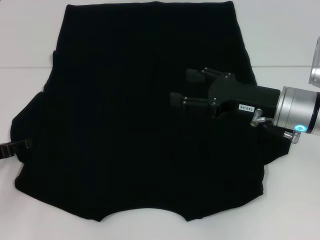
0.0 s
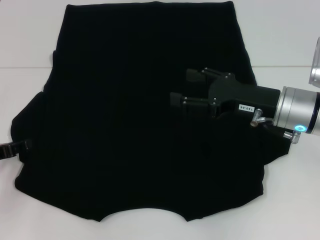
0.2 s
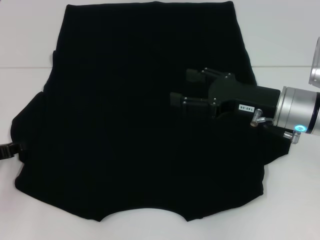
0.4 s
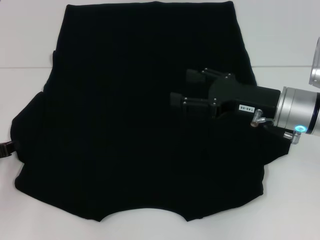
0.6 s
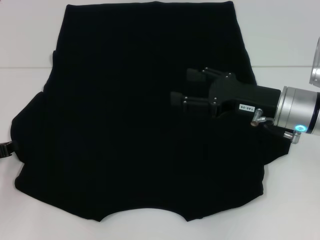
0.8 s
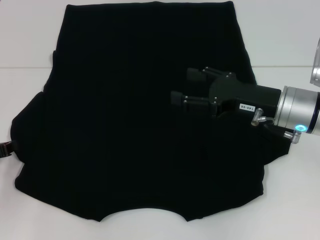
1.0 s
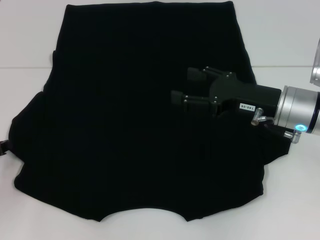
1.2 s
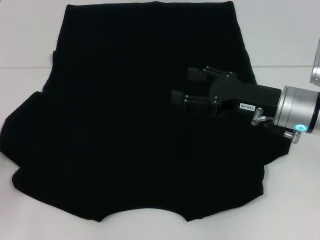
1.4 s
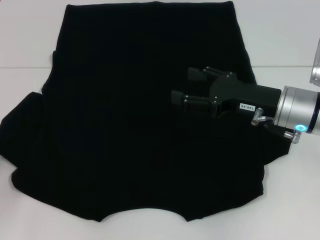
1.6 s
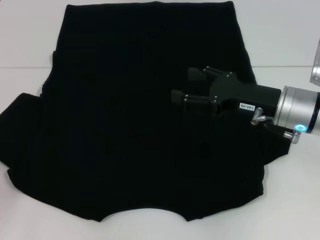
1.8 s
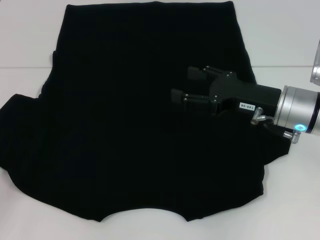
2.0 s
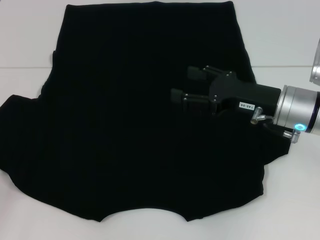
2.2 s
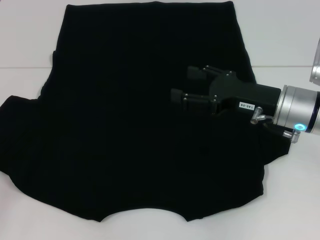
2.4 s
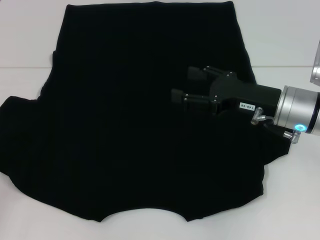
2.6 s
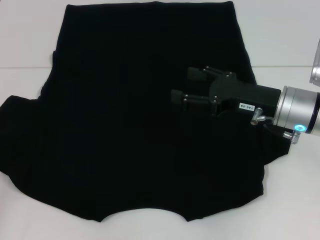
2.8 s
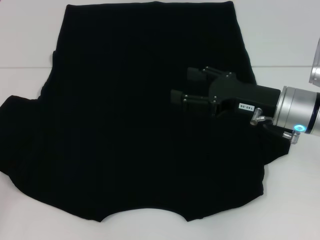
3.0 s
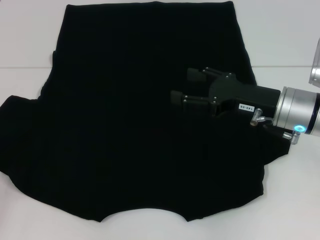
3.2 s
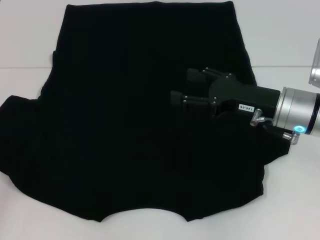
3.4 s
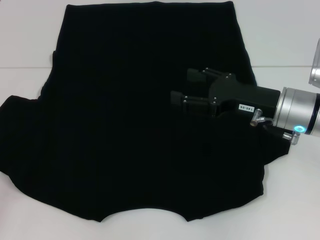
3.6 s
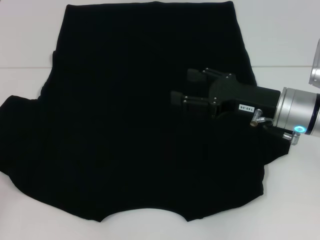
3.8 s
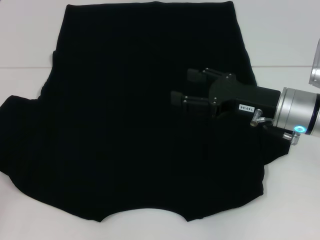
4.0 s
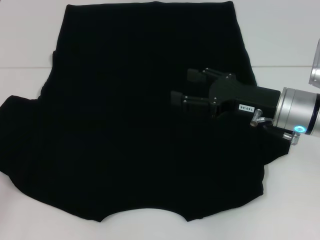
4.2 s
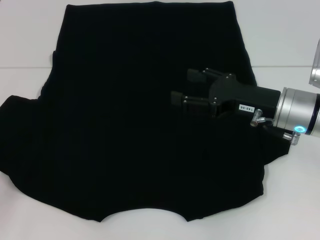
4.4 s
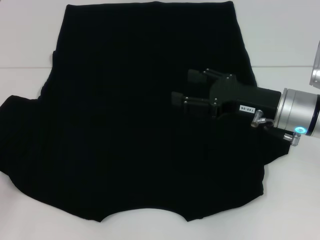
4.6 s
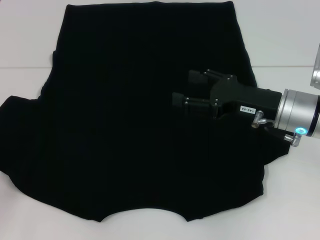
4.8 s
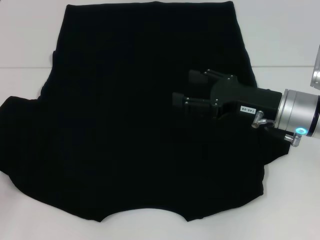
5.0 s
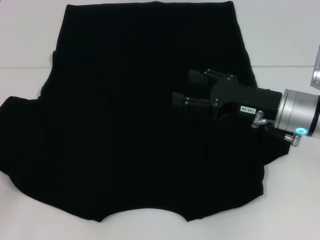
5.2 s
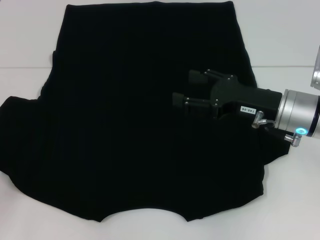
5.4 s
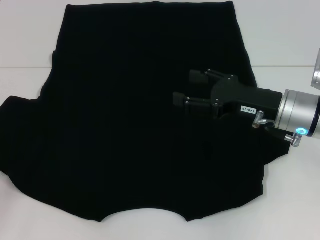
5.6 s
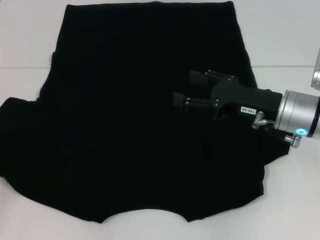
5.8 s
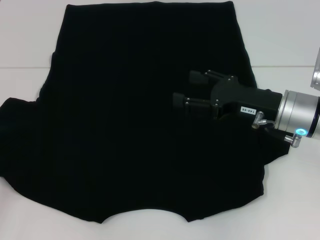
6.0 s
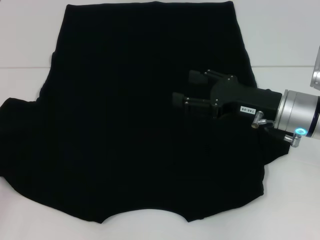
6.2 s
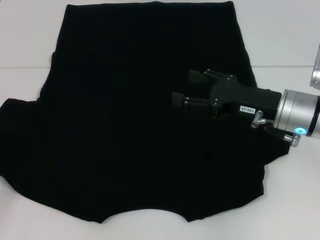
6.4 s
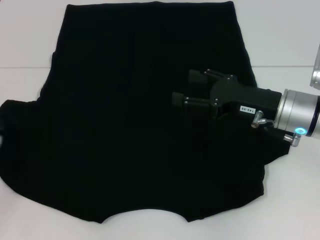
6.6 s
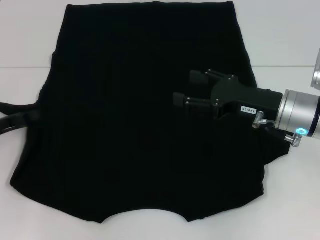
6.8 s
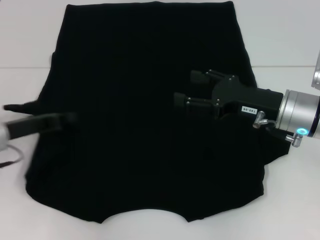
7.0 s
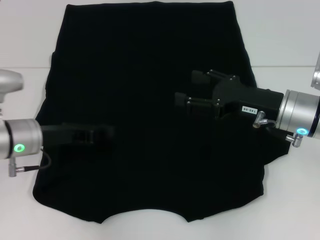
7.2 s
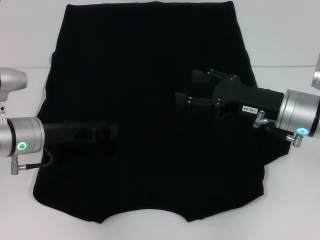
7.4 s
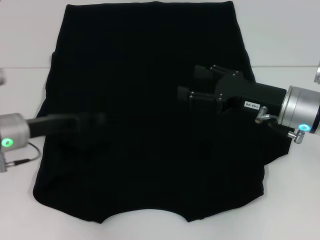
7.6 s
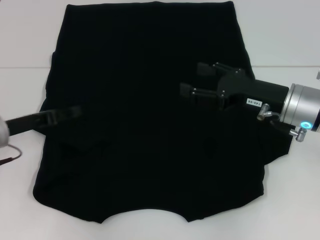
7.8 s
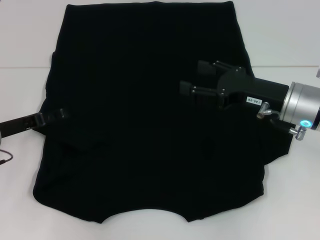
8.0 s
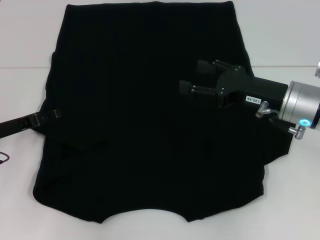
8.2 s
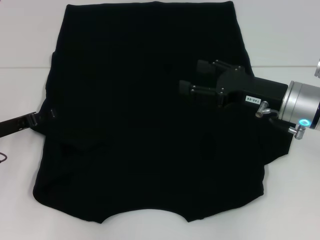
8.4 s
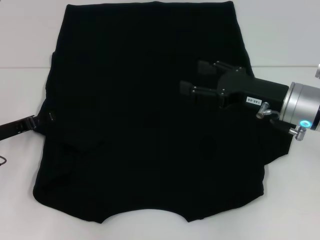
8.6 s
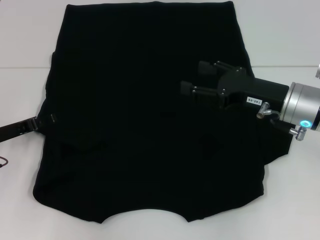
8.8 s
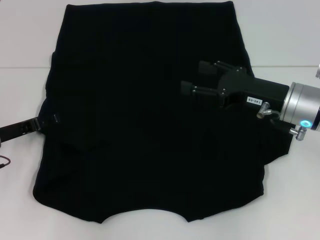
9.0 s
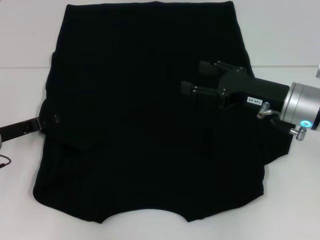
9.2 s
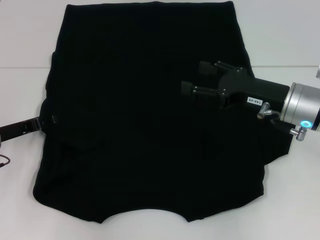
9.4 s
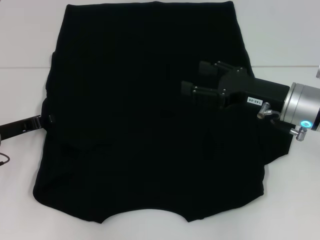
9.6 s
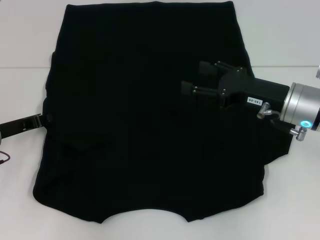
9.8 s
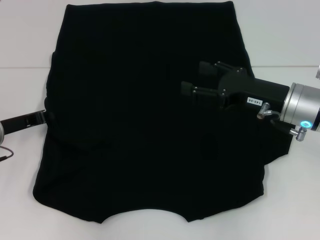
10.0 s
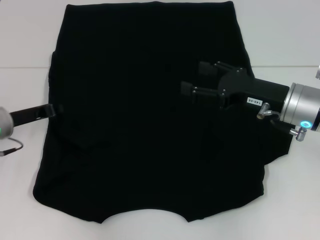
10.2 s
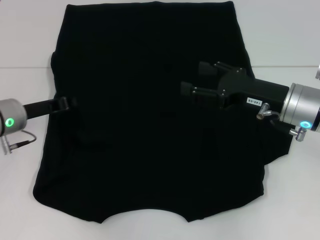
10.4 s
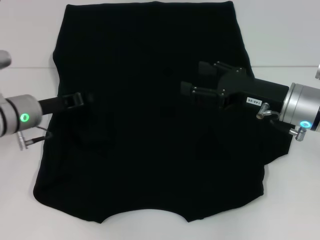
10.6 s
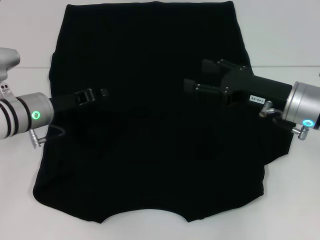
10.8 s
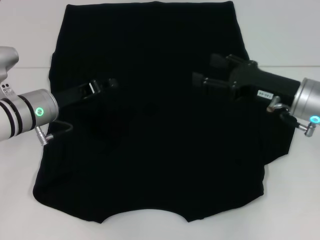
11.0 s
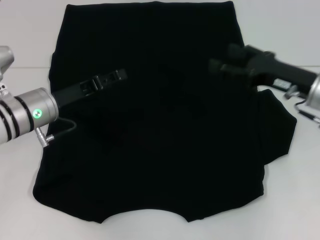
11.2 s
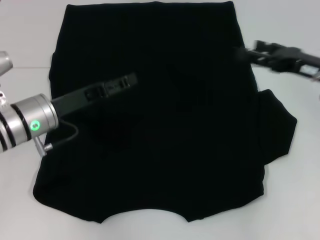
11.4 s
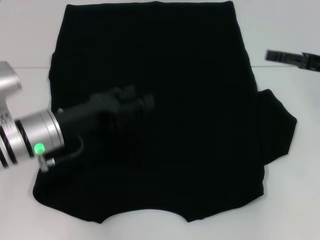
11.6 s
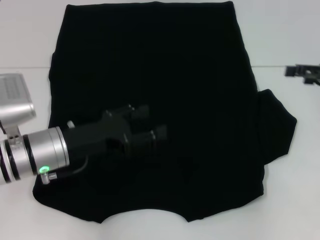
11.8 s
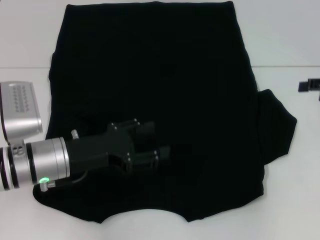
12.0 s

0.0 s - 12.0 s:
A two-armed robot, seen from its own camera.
Step, 0.0 s - 8.0 s: Fold the bottom left sleeve with your left hand.
0.0 s - 1.6 s: The left gripper closes up.
1.6 s - 3.0 s: The grippers make only small movements.
4.4 s - 6.0 s: The left gripper closes its fingers.
6.0 s - 7.6 s: The left gripper moves to the right and forward, about 15 cm, and opens.
7.6 s - 9.0 s: The left gripper heads to the left, covering about 5 cm, and opens.
9.0 s - 10.4 s: The left gripper shifts by about 5 cm, and closes.
10.4 s - 12.0 s: The left gripper shifts about 10 cm to the right and backward, and opens. Meanwhile the right gripper heads to the right, covering approximately 15 cm.

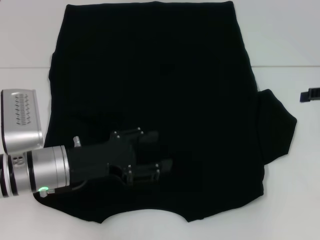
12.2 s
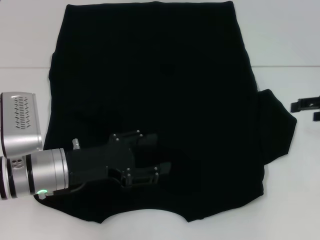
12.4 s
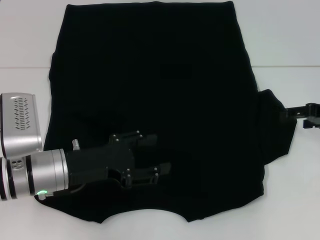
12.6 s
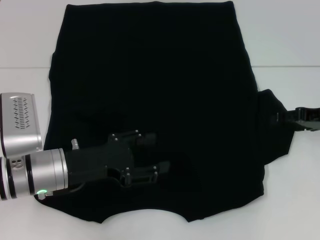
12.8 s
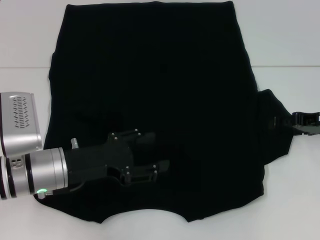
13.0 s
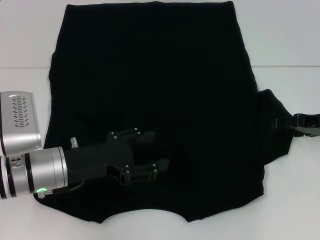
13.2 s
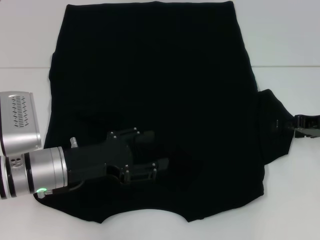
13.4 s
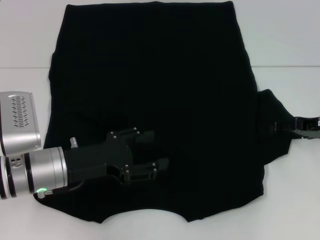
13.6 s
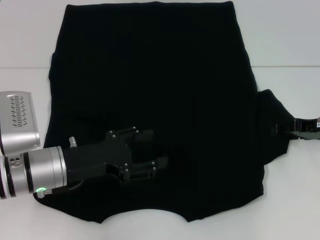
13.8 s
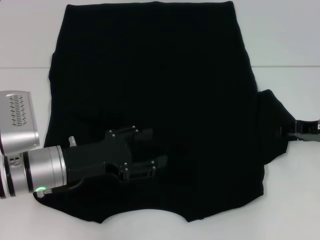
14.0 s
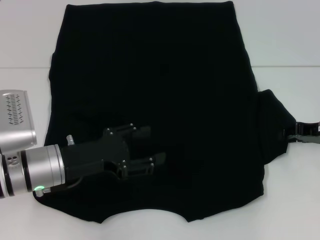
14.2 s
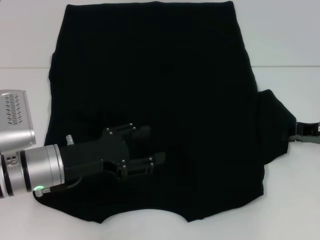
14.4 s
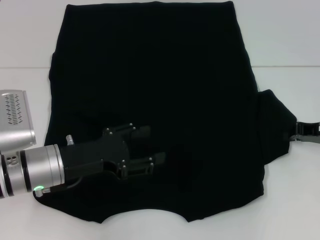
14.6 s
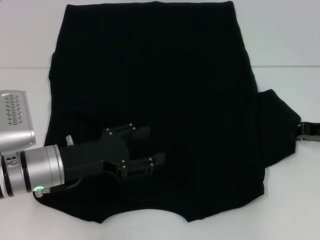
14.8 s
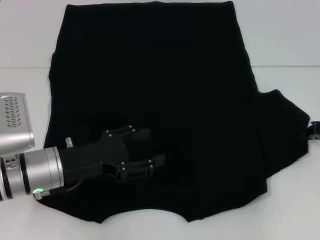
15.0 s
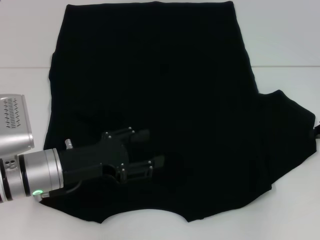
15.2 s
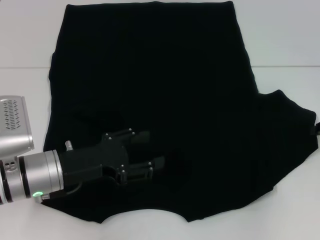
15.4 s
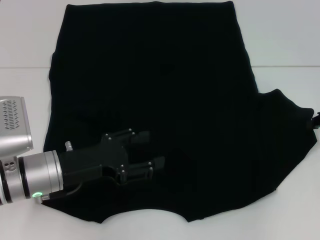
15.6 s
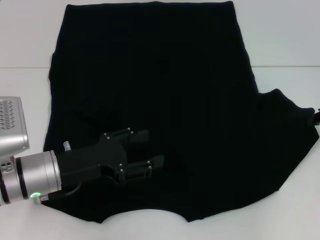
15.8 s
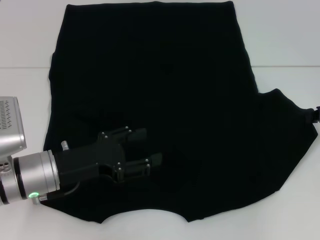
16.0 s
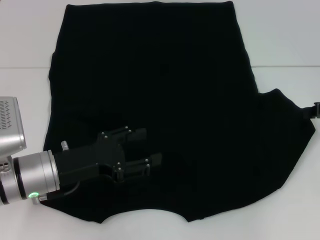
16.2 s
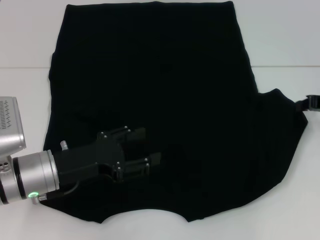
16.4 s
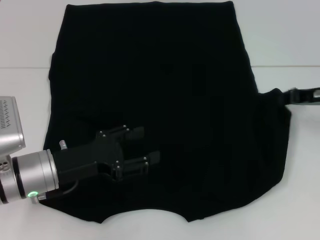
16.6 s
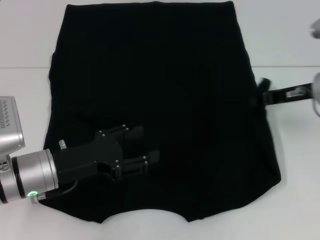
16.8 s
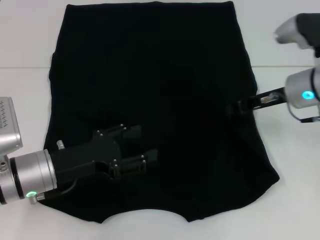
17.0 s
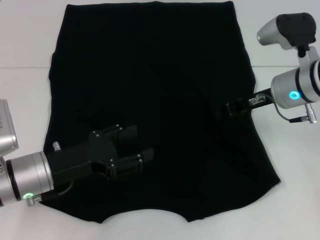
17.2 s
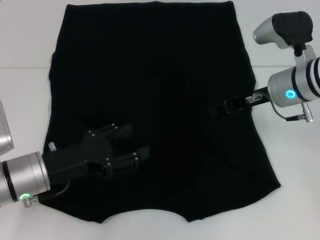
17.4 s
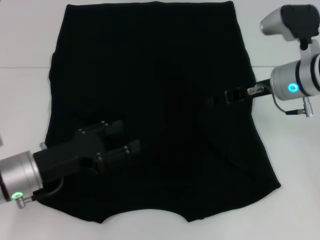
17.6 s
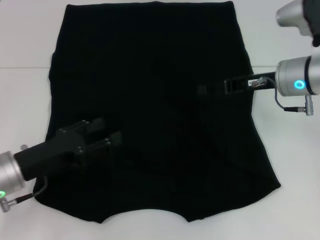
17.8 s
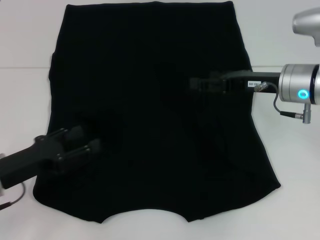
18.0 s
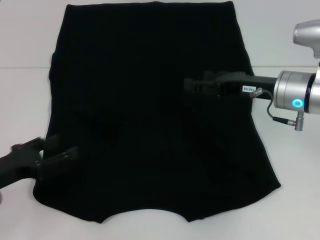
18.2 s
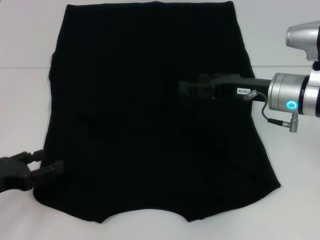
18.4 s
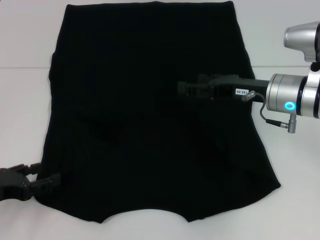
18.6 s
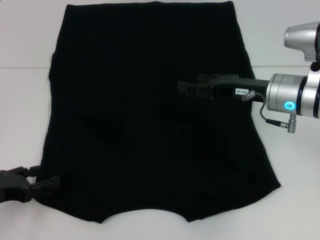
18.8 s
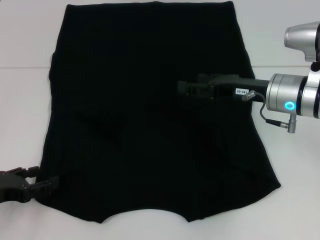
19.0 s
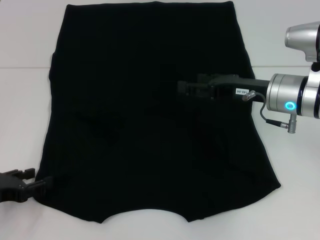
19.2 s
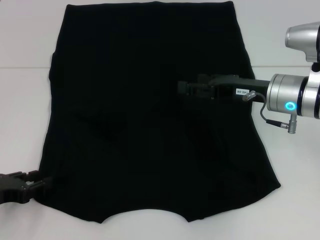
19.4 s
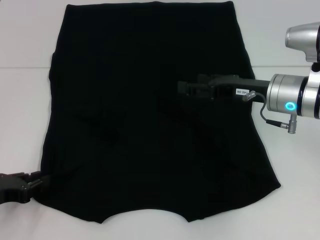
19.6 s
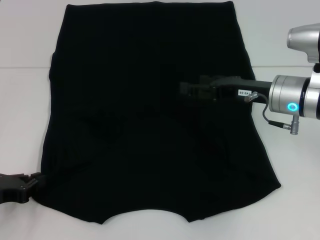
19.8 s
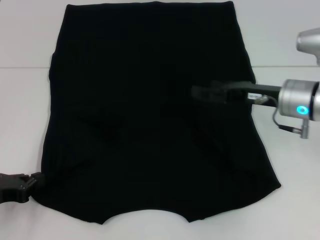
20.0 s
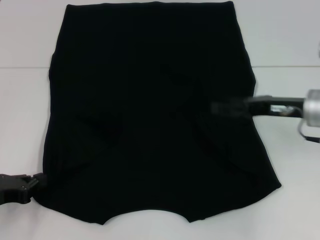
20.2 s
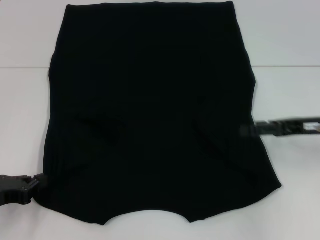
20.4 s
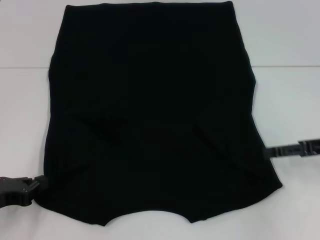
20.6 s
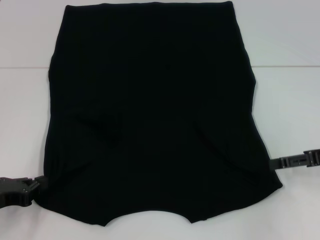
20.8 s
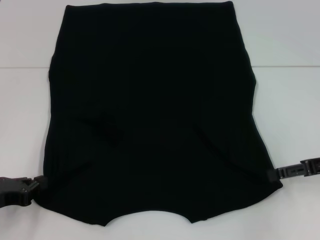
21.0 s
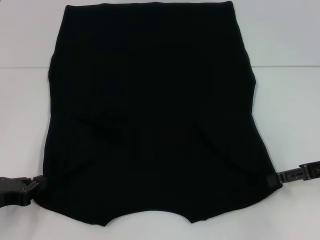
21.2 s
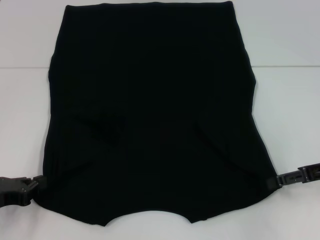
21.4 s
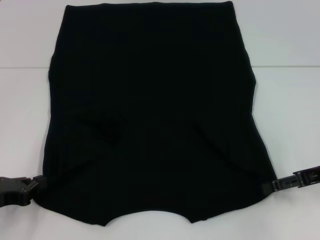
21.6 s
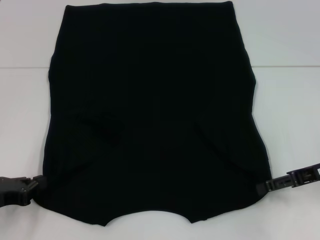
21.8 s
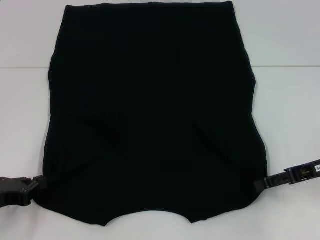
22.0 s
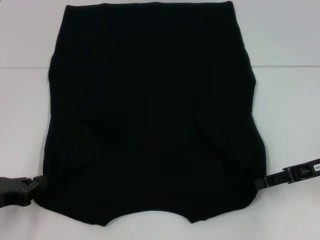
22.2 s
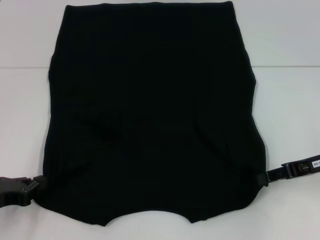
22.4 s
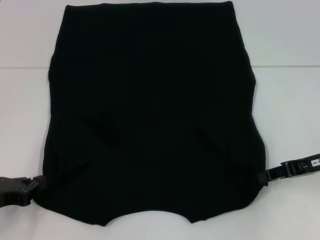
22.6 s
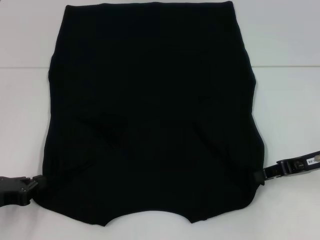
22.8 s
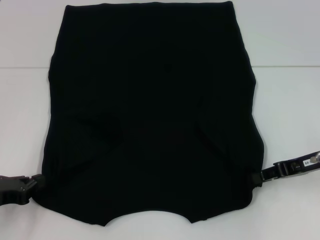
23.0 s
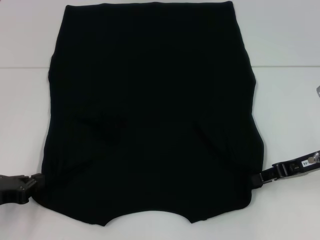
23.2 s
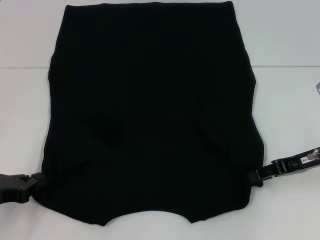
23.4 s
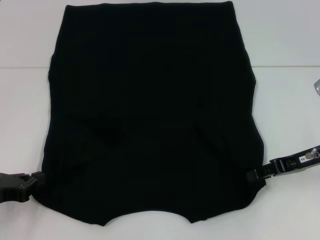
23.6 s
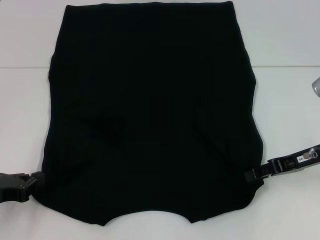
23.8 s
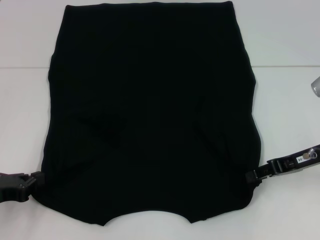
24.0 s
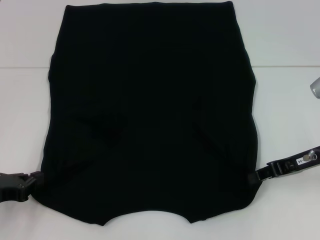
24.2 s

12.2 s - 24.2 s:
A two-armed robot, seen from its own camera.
Step, 12.2 s - 17.4 s: Fold the bottom right sleeve with your right hand.
Step, 17.6 s - 20.2 s: Grab the bottom left corner with your left hand.
Step, 20.4 s - 23.0 s: Grab the bottom right corner with your right hand.
12.2 s - 13.8 s: The right gripper goes some 10 cm downward and to the left.
13.8 s - 15.2 s: The right gripper closes its fingers.
15.2 s - 16.6 s: The right gripper moves to the left, roughly 5 cm.
16.6 s - 18.2 s: Both grippers travel together to the left, approximately 10 cm. The right gripper opens up.
18.2 s - 19.8 s: The left gripper closes up.
19.8 s - 21.2 s: The right gripper travels to the right and backward by about 15 cm.
21.2 s - 22.6 s: The right gripper closes up.
22.6 s - 24.2 s: The grippers stay close to where they were, moving slightly.
